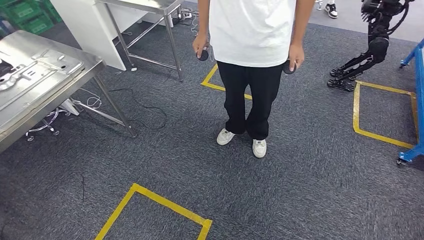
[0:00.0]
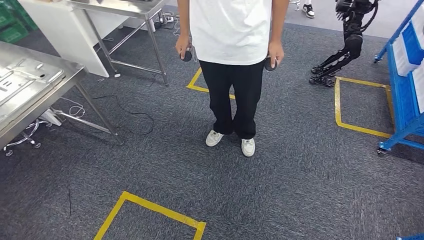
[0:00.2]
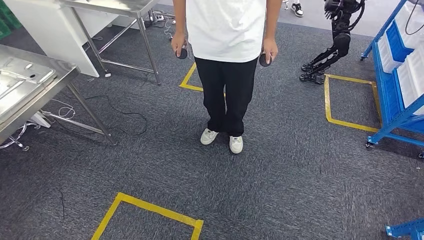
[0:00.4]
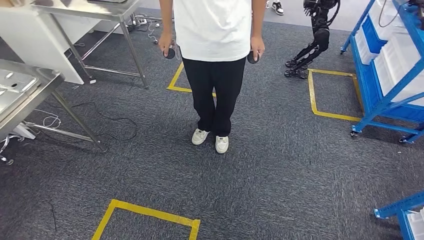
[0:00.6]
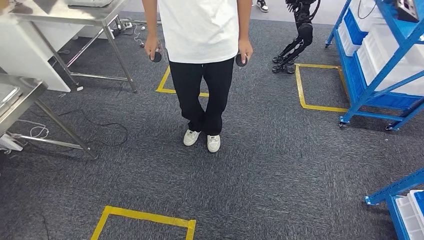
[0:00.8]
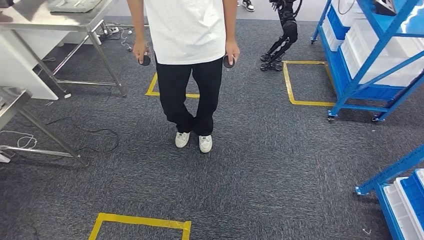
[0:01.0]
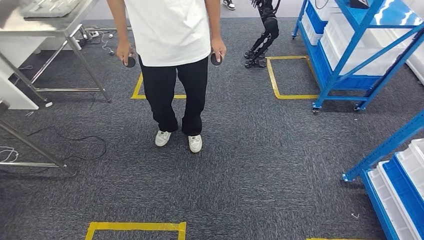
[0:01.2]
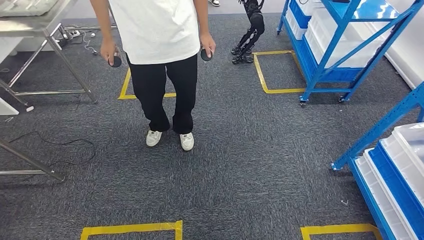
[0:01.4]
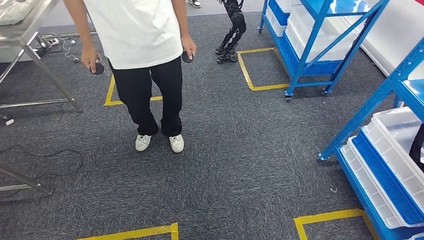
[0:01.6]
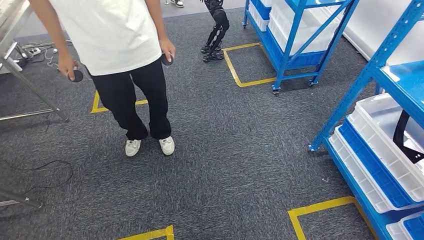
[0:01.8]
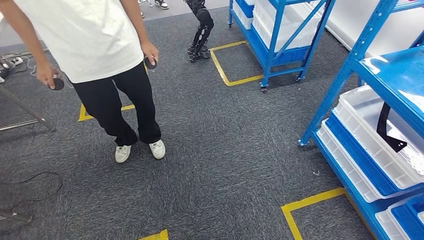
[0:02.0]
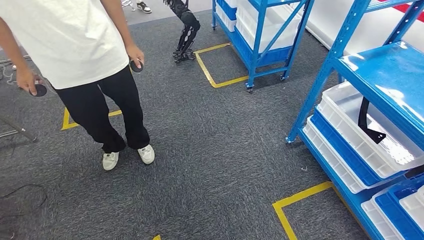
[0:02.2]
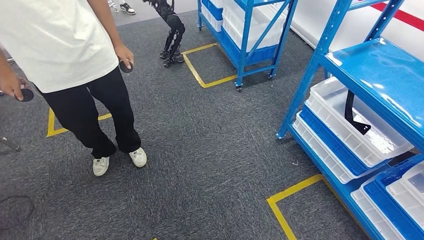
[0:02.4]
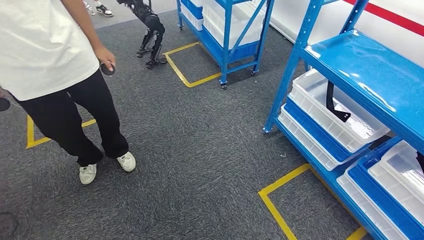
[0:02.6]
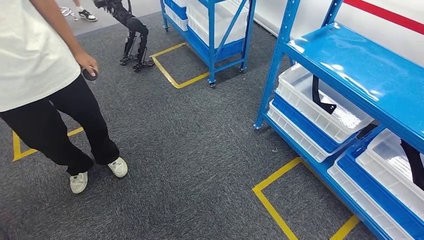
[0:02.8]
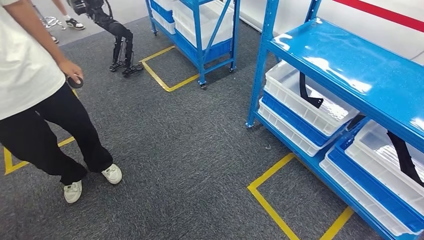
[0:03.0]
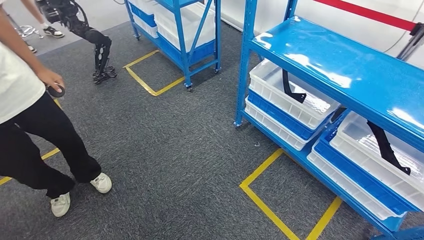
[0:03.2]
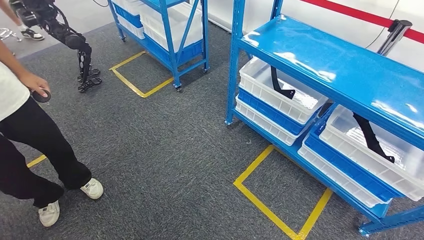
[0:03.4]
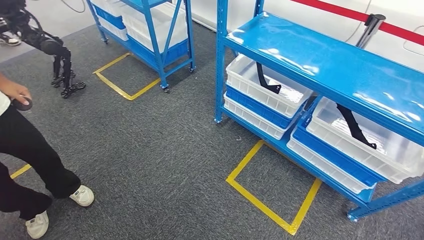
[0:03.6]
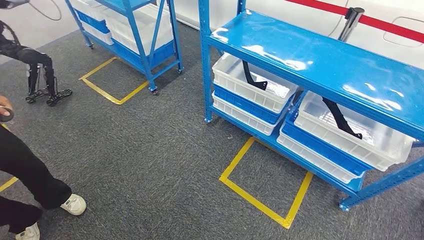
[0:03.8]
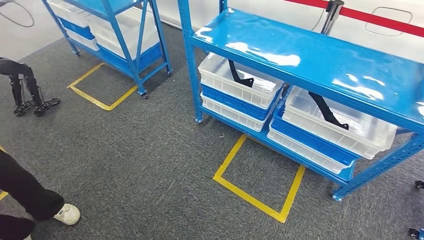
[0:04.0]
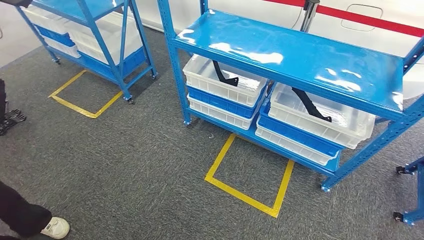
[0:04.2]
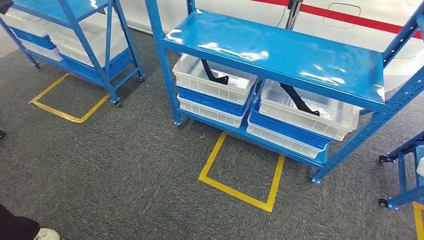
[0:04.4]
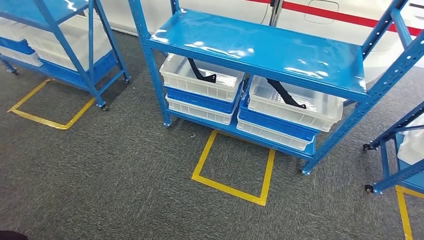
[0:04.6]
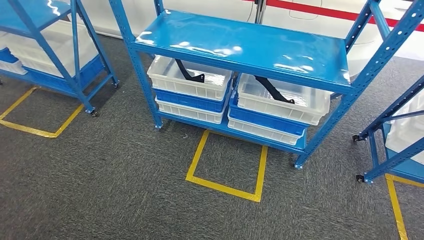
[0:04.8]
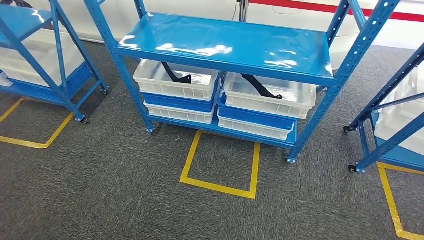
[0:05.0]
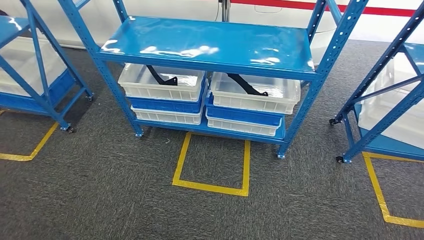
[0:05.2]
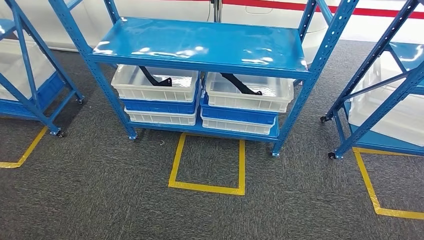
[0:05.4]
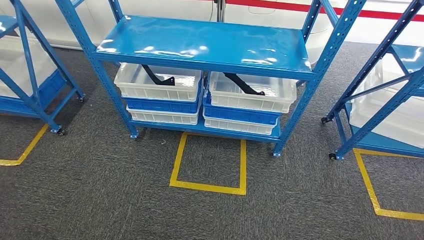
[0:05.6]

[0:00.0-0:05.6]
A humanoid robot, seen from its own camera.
Step, 0:00.0 to 0:05.6: Move to the initial position of the shelf.
